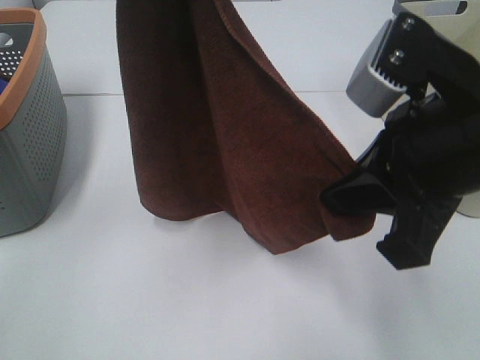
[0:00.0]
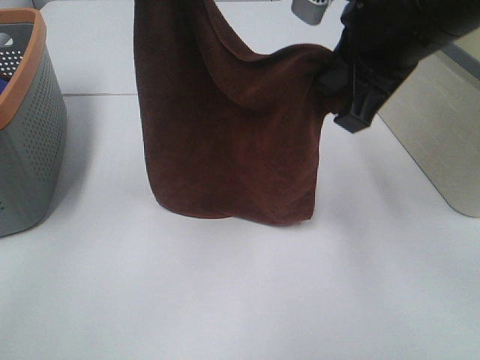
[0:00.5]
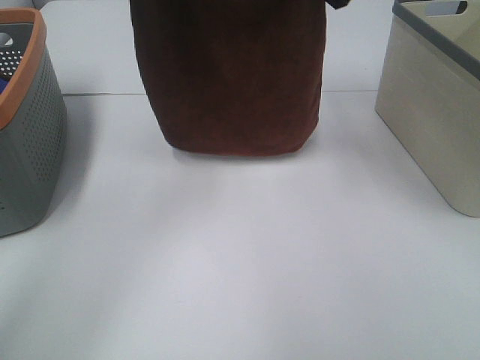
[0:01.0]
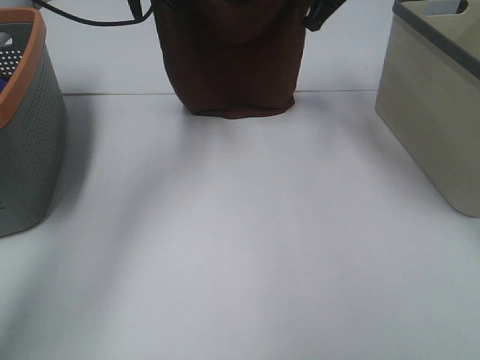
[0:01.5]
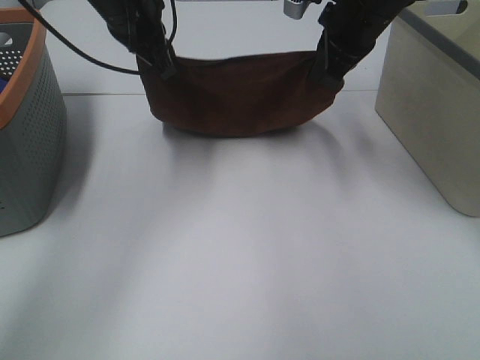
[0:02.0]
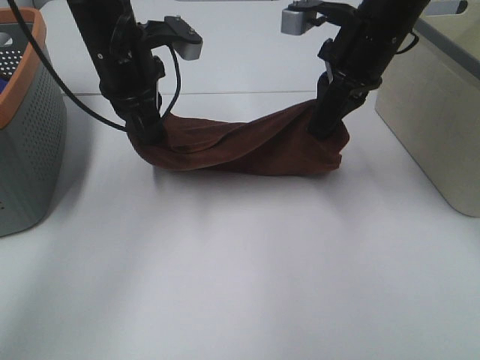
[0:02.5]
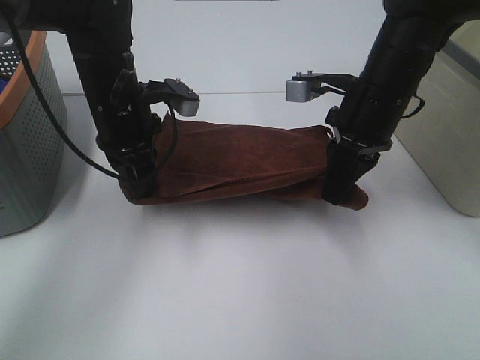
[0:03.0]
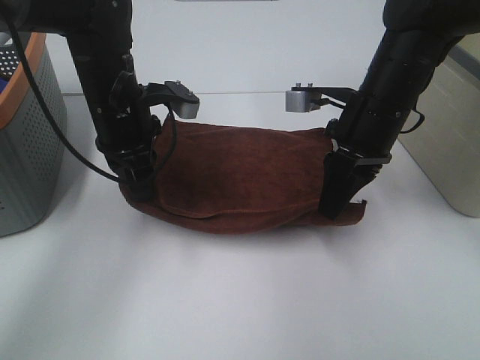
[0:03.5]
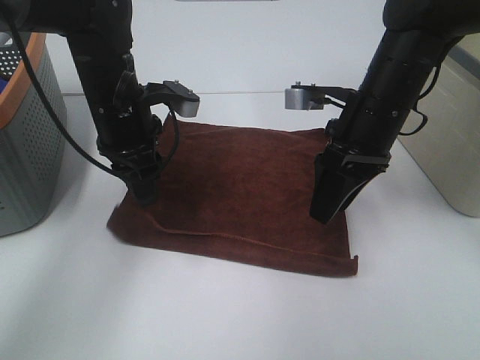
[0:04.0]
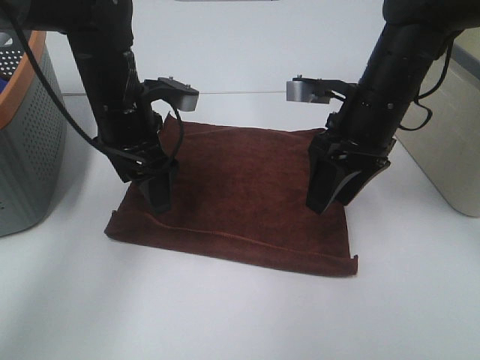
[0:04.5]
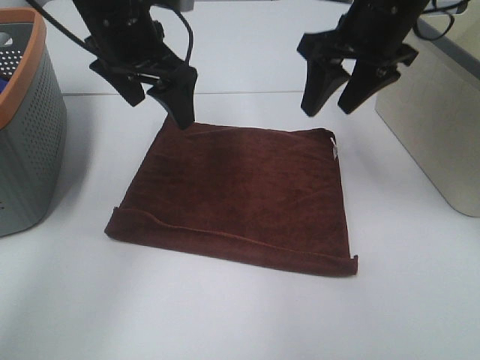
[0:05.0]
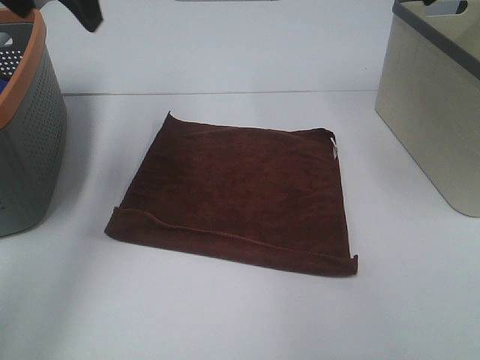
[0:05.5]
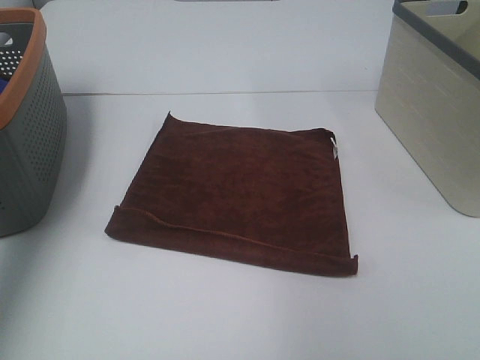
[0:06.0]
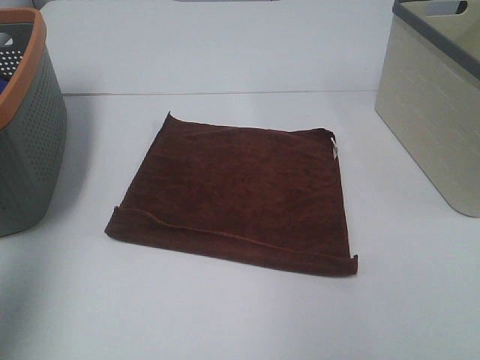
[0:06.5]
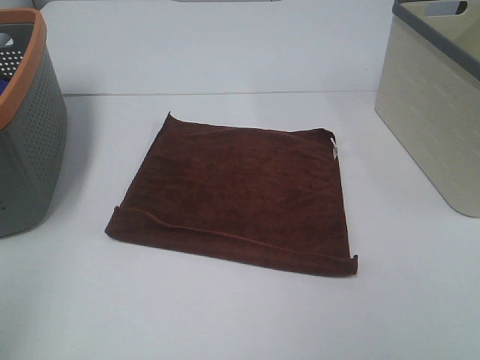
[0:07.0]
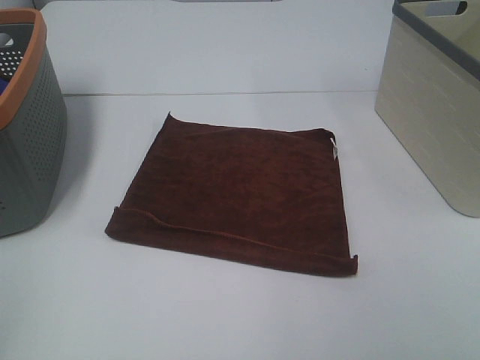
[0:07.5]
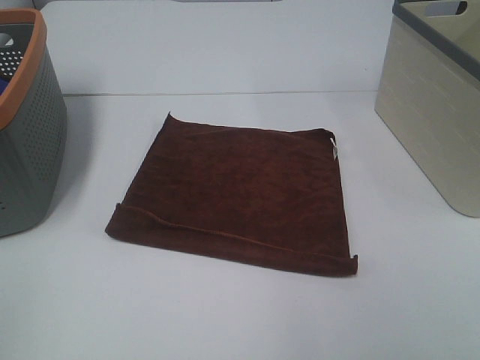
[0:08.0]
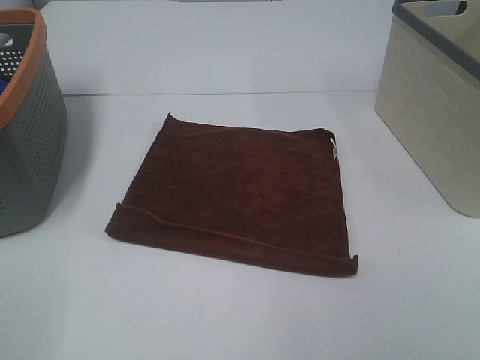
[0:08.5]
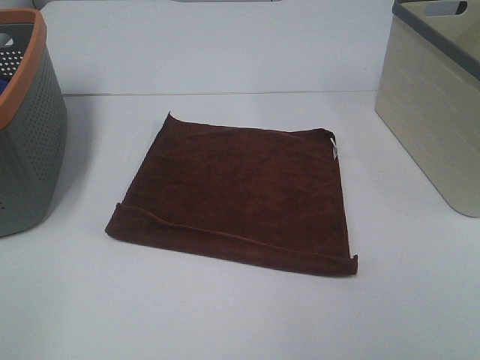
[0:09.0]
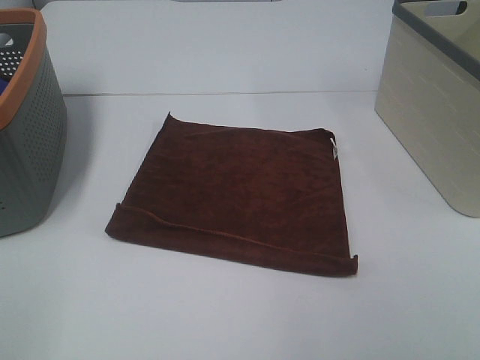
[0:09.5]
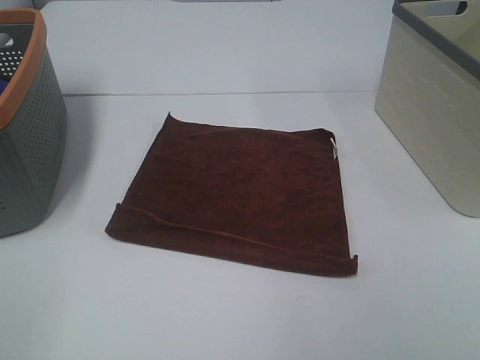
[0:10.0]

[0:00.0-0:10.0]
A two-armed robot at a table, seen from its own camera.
Task of the whole recording: Remove the towel and place it.
0:00.0 to 0:02.0: The left gripper shifts some 25 cm downward and forward, while the right gripper is displaced forward by roughly 25 cm.
0:02.0 to 0:04.0: The grippers both shift downward and backward by some 10 cm. The right gripper opens. Meanwhile the left gripper opens its fingers.
0:04.0 to 0:06.0: The right gripper shifts about 30 cm upward and to the right. Meanwhile the left gripper heads upward and to the left, covering roughly 30 cm, and opens.
0:06.0 to 0:08.0: The left gripper travels backward by some 30 cm.

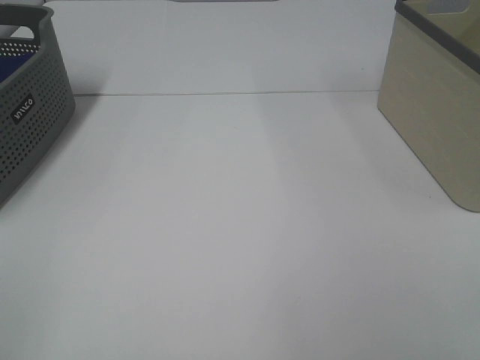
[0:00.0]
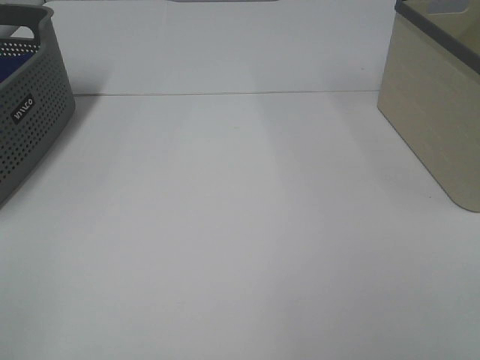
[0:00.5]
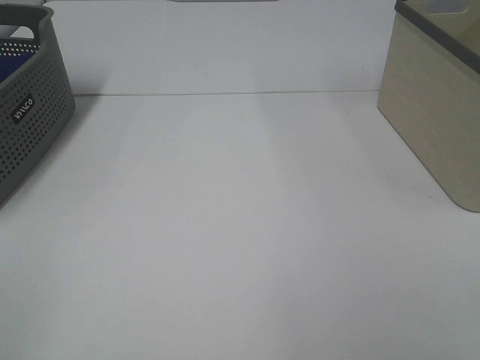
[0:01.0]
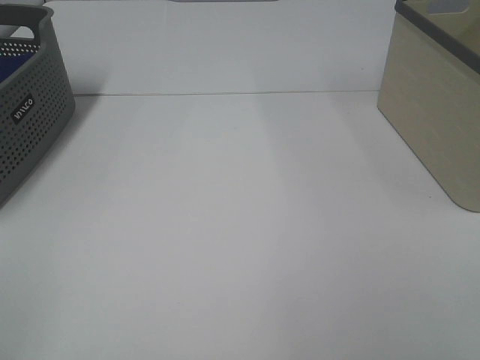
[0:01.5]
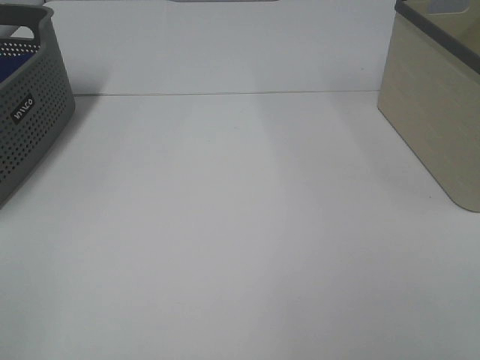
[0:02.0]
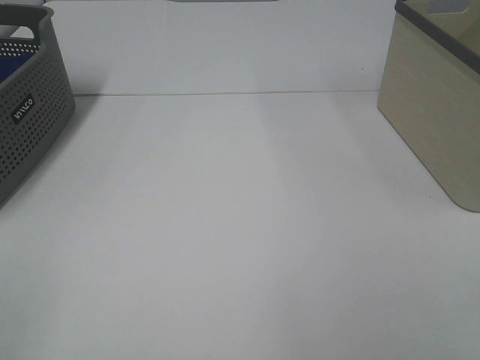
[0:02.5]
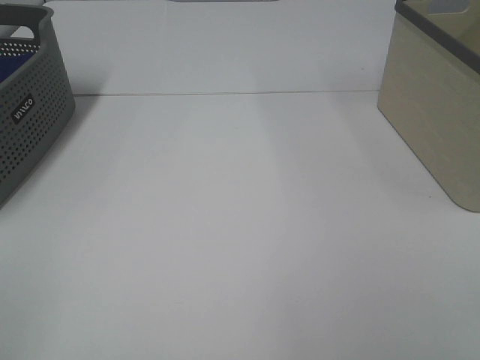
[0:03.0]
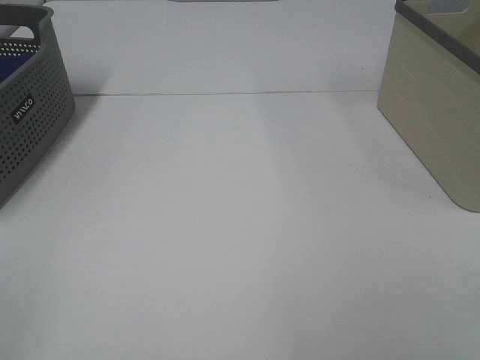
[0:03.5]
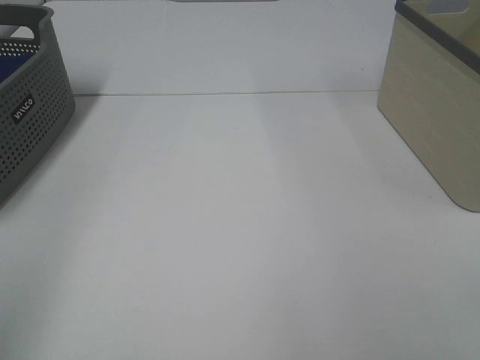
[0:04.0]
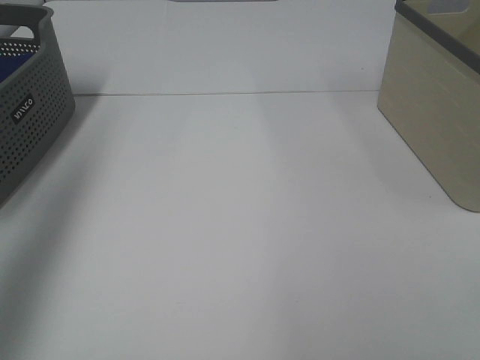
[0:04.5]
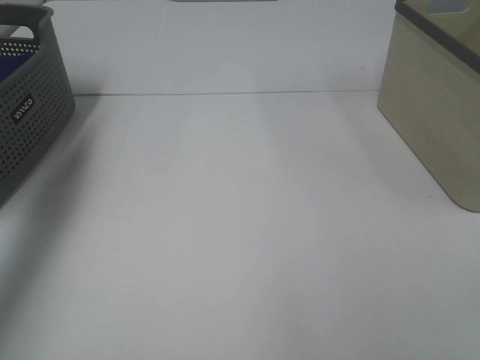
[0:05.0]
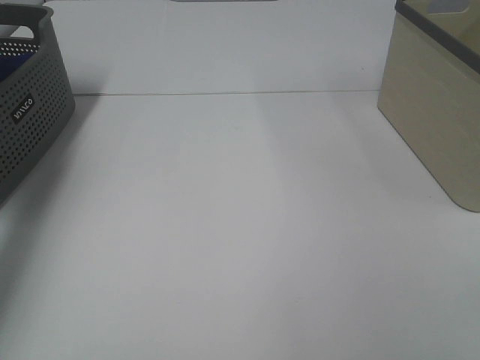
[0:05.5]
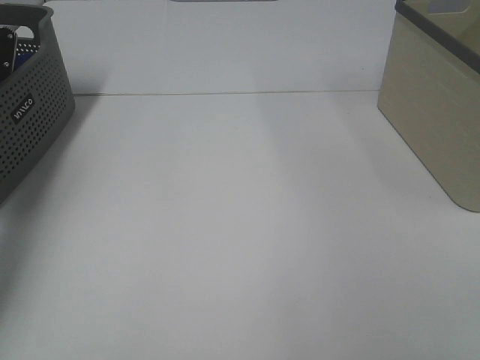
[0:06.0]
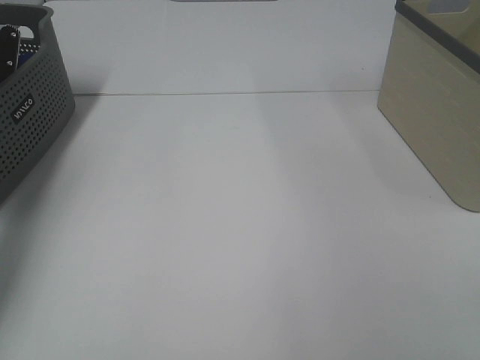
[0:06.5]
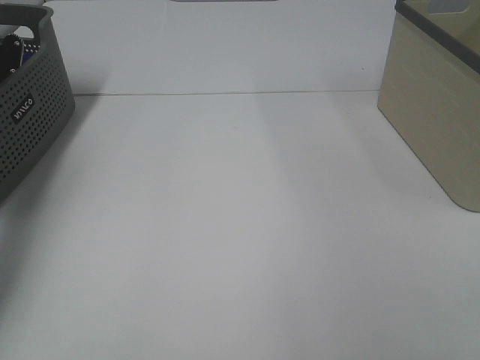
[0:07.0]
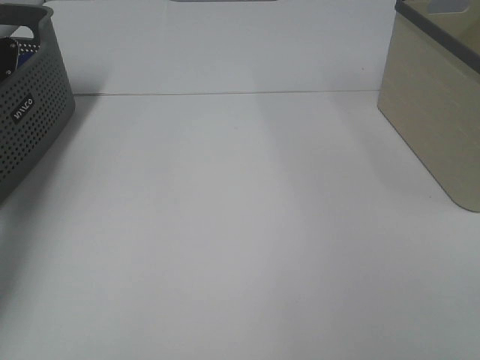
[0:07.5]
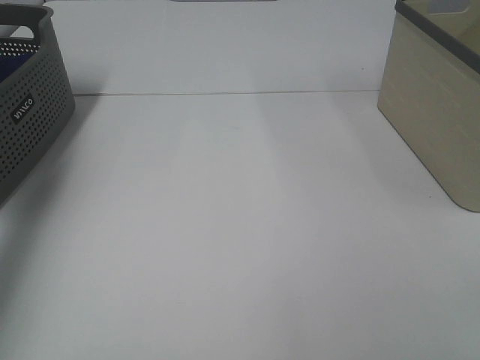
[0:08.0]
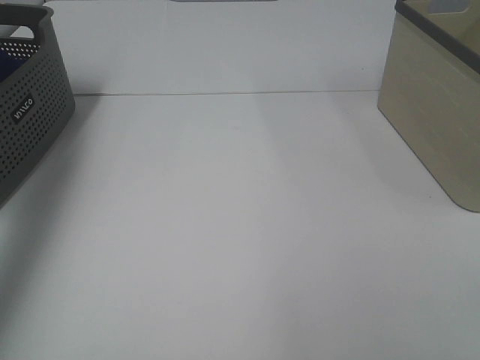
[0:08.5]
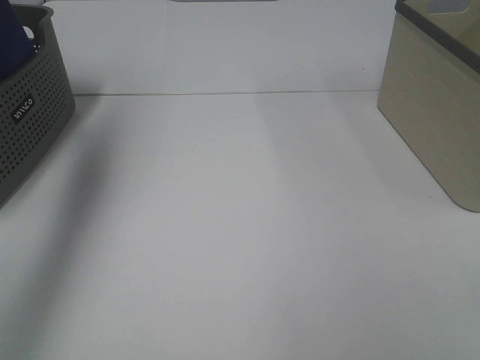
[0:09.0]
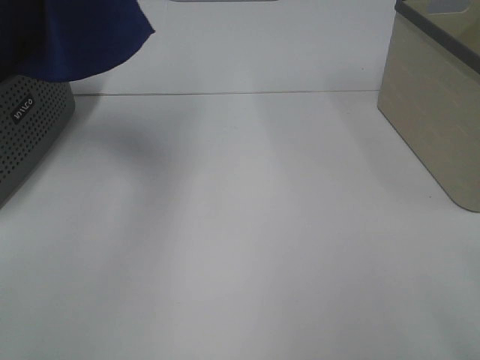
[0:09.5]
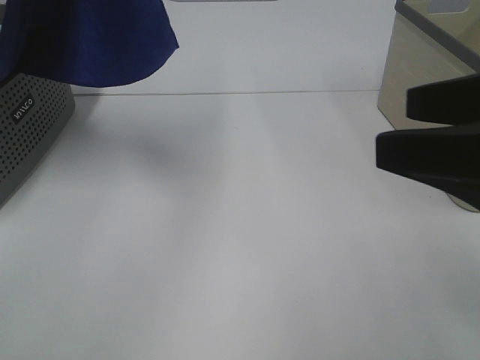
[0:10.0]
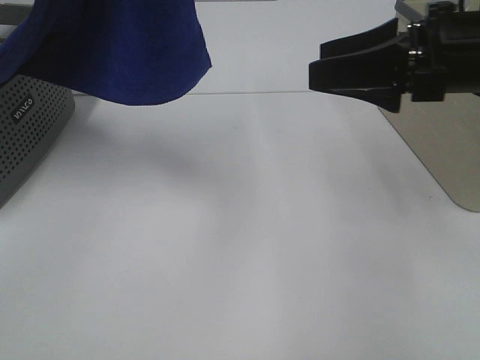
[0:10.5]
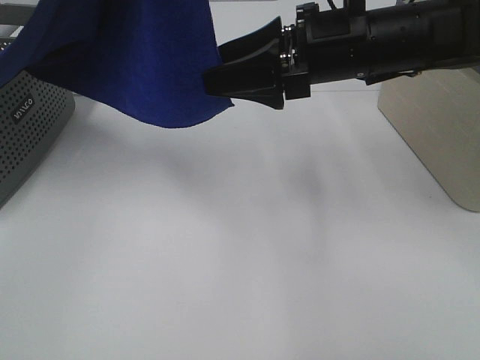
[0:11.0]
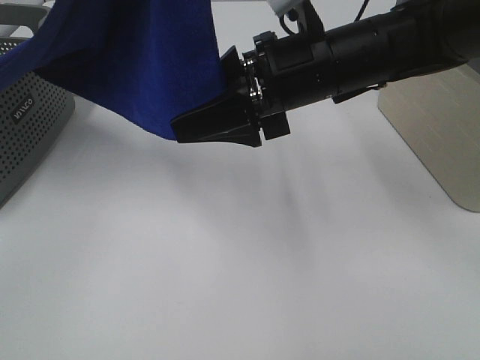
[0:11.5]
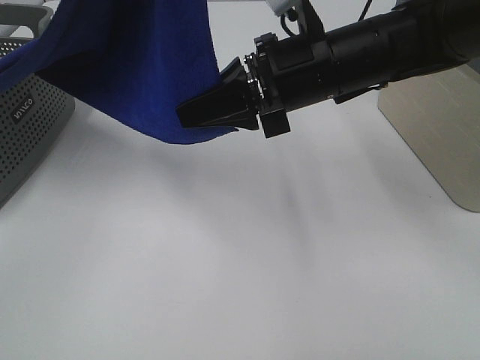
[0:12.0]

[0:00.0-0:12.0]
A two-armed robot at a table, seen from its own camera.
Task of the whole recording: Remove the towel and place it.
Step, 0:08.5 to 0:11.5: Right hand: grab a corner of the blue towel and straighten it.
0:00.0 to 0:02.0: Both grippers stay about where they are.
0:04.0 to 0:06.0: The left gripper moves forward, some 40 cm.
0:08.0 to 0:10.0: The right gripper heads forward, covering about 15 cm. Meanwhile the left gripper shifts roughly 35 cm to the right, upward and backward.
0:10.0 to 0:12.0: The left gripper travels to the right and backward by roughly 10 cm, while the right gripper is displaced forward and to the left by roughly 20 cm, and closes up.

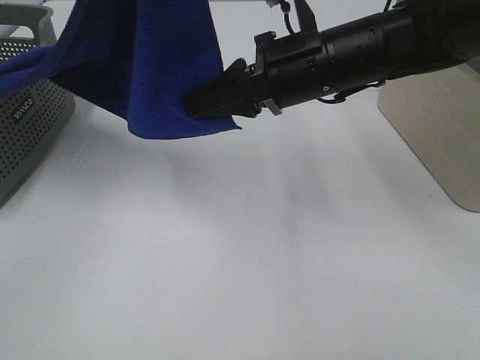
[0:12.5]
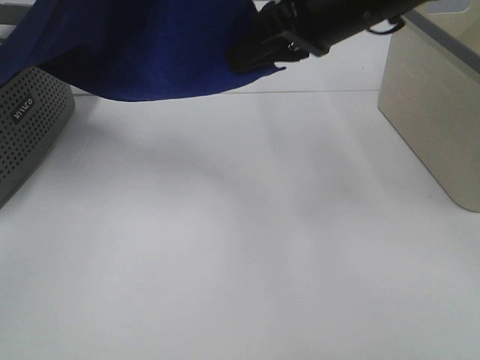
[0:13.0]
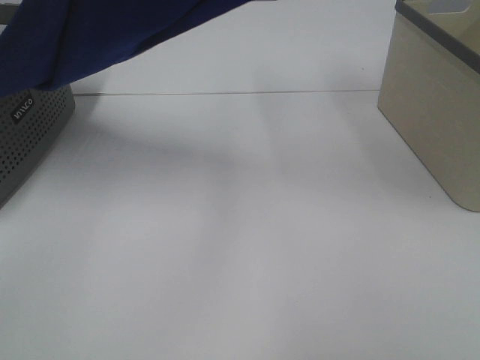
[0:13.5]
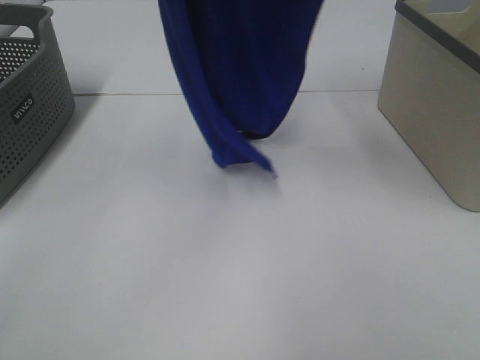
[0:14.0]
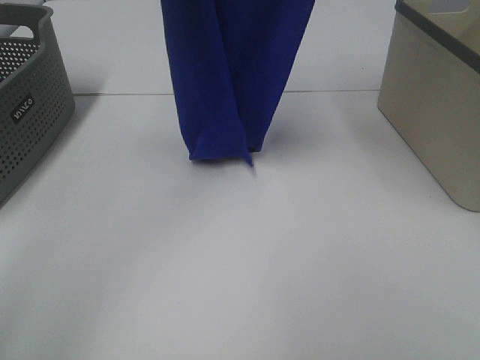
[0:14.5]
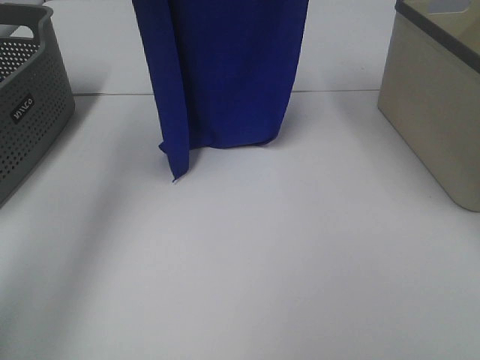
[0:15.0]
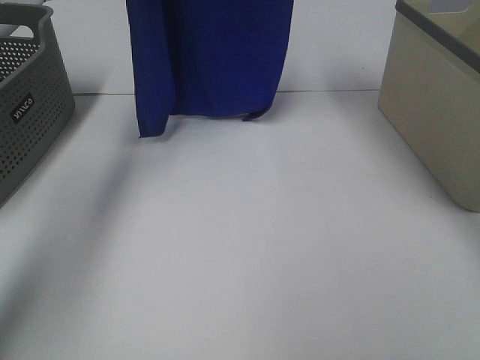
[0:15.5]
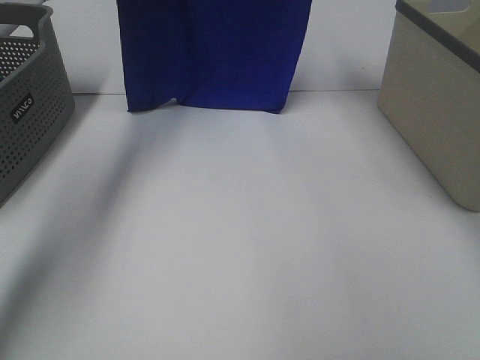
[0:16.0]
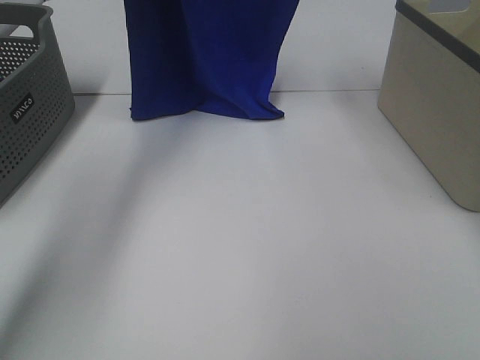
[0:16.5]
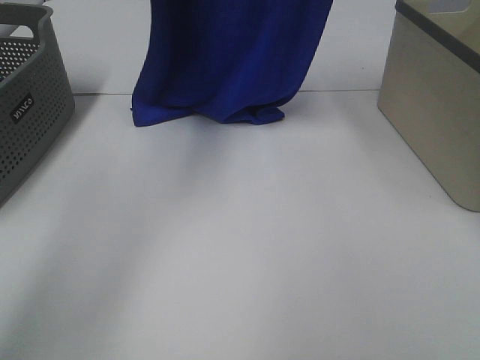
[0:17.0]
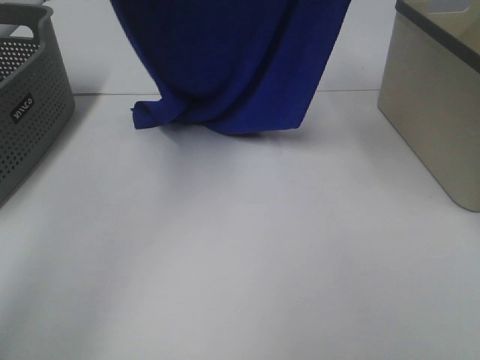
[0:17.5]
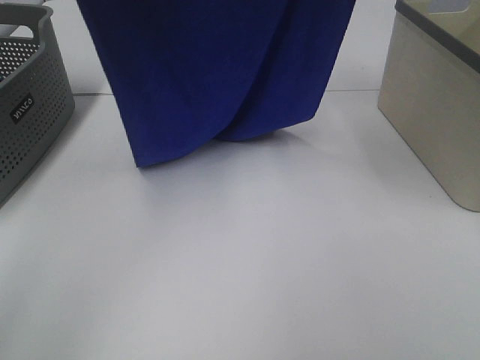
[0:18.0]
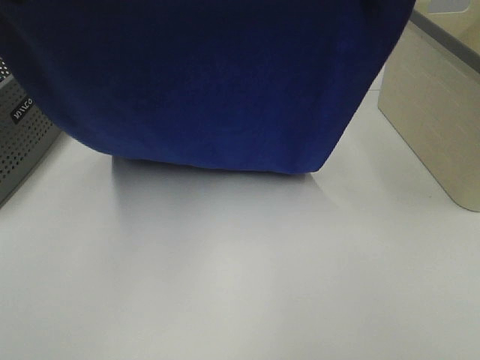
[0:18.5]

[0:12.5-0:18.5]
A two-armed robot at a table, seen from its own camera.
Task of the whole recording: Remove the towel and place it.
Step, 0:12.5 to 0:17.5: Left hand: spread the blue towel flat on the table.
Step, 0:12.5 to 0:17.5: Right hand: spread the blue towel flat on the table.
0:12.5 to 0:14.5: The left gripper travels forward and to the left by approximately 15 cm. The right gripper shifts roughly 25 cm upward.
0:14.5 to 0:16.5: The left gripper goes approximately 15 cm forward and downward. Meanwhile the right gripper travels forward by approximately 10 cm.
0:16.5 to 0:18.5: The right gripper travels backward by approximately 20 cm. The left gripper travels backward by about 30 cm.
